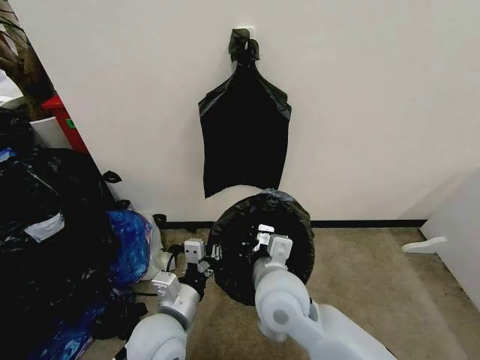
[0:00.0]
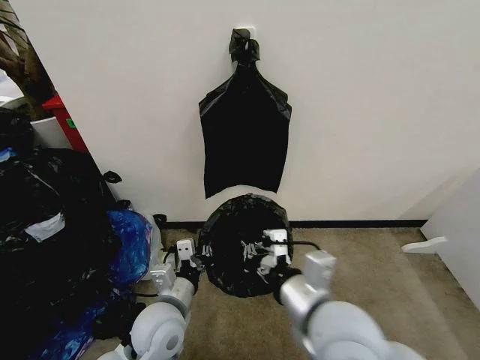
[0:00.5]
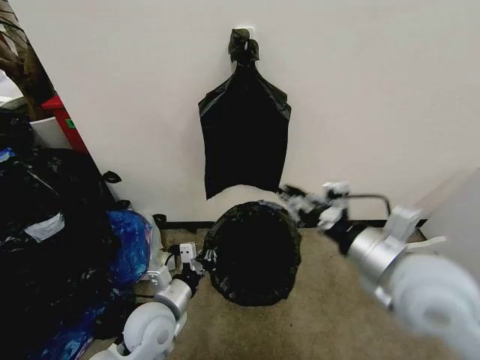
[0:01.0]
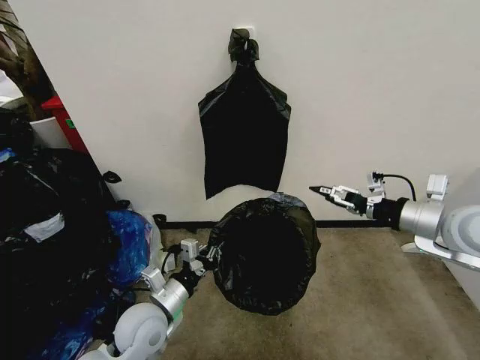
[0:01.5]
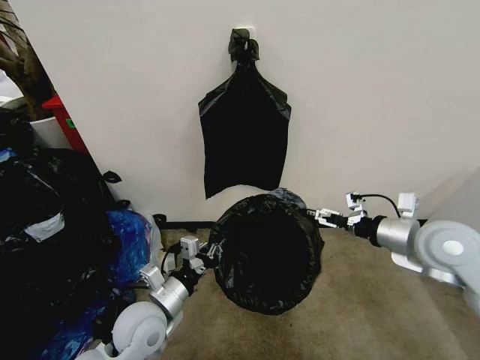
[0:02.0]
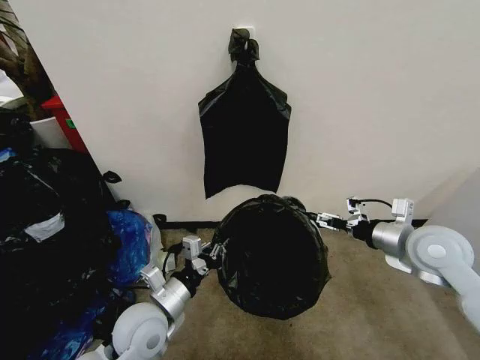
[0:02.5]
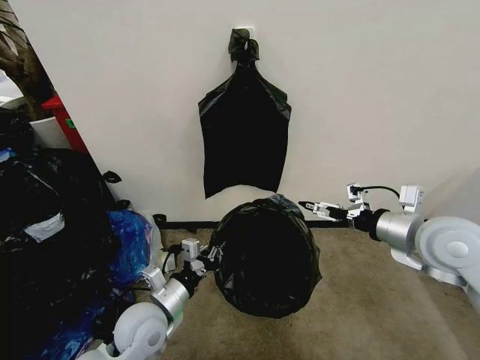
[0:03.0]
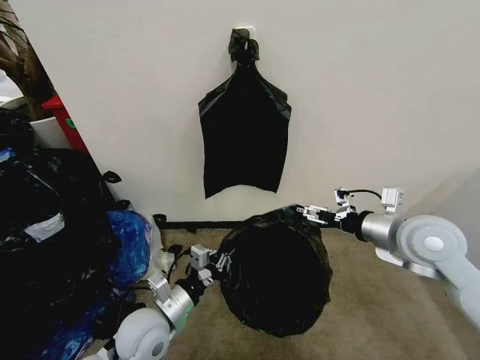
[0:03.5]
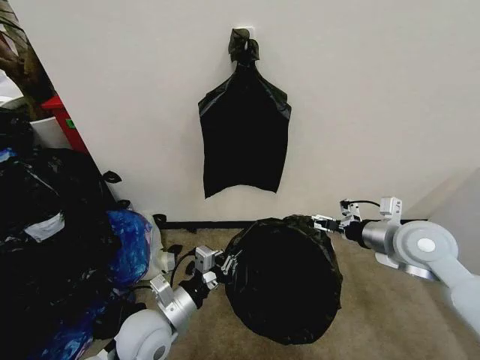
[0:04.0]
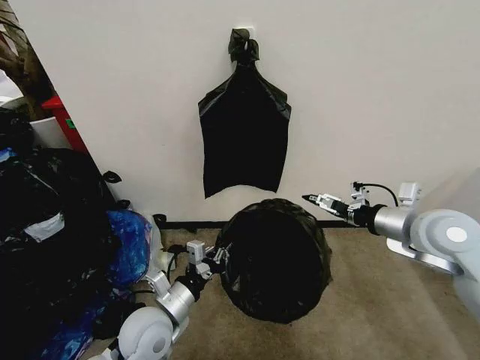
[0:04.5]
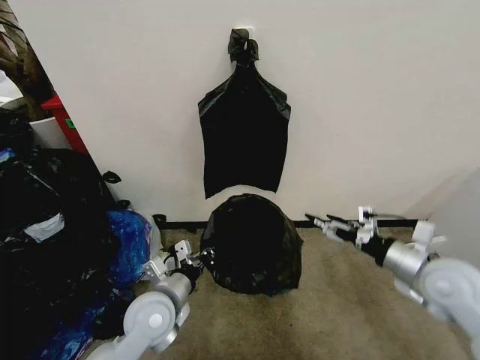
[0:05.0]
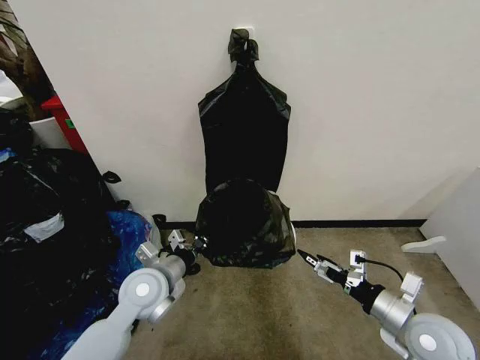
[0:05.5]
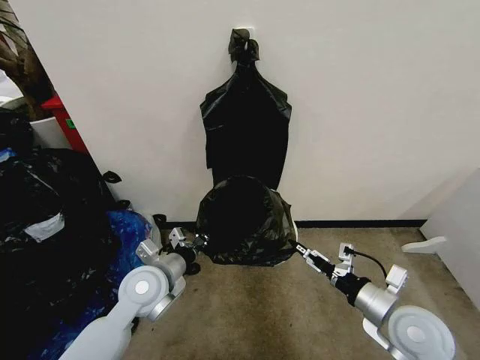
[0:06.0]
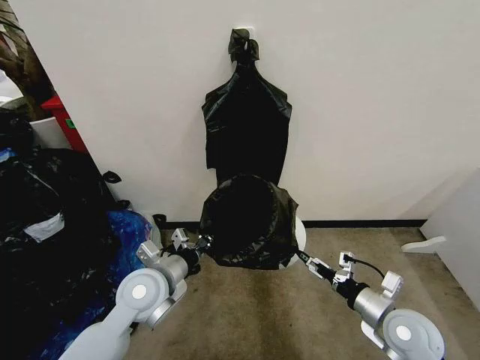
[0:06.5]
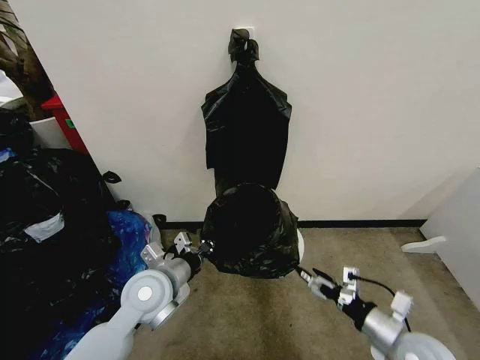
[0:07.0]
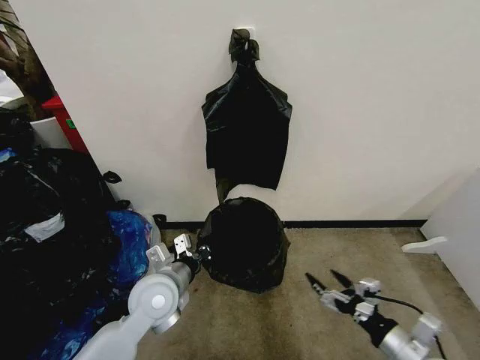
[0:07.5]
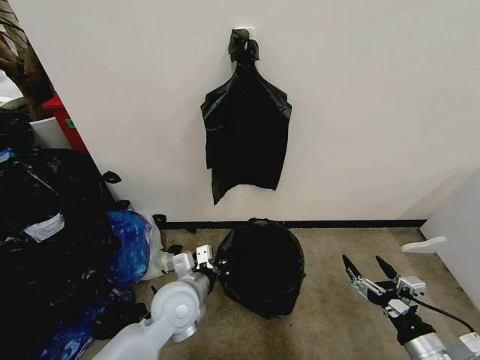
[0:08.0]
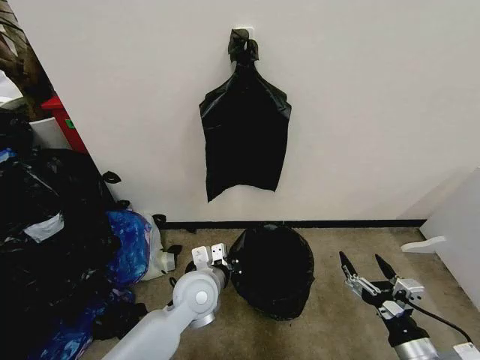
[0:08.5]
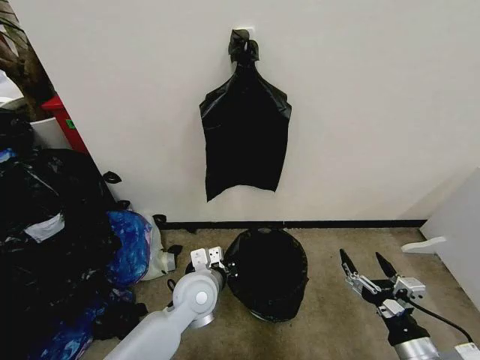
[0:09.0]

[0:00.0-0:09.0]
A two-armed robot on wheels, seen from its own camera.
Task of the whole recording: Place the garbage bag over the trash bin.
0:00.0 to 0:02.0: The left gripper travels to the left by about 5 cm. Meanwhile the right gripper travels to the right by roughly 30 cm, and opens up.
0:02.0 to 0:04.5: There are only small adjustments of the grippers.
0:04.5 to 0:07.0: The left gripper goes approximately 5 cm upward and forward, while the right gripper is displaced downward and backward by roughly 25 cm.
0:07.0 to 0:09.0: The left gripper moves to the right and downward, approximately 10 cm. Meanwhile the right gripper heads backward, covering some 10 cm.

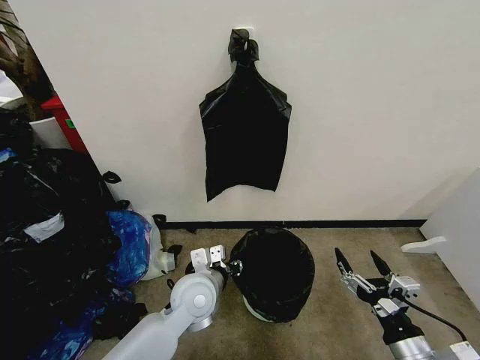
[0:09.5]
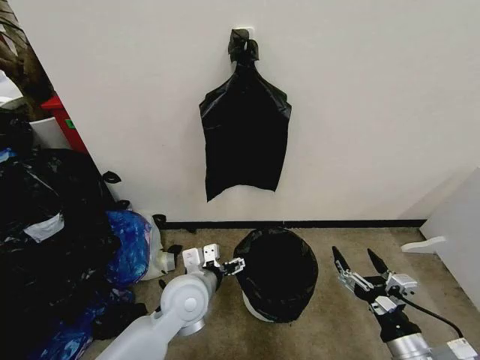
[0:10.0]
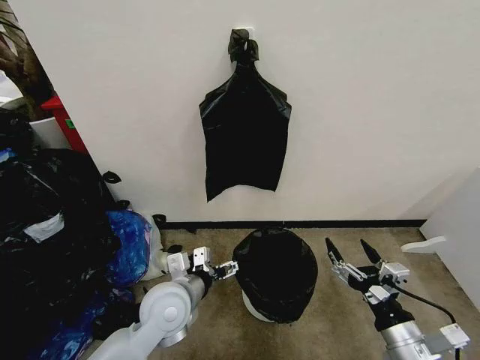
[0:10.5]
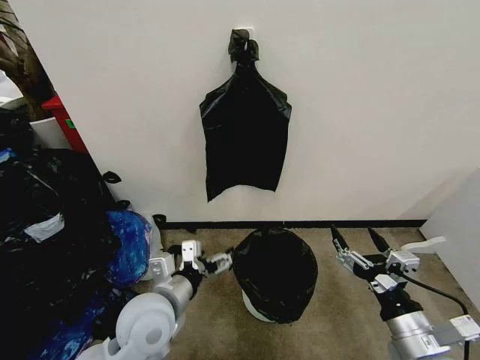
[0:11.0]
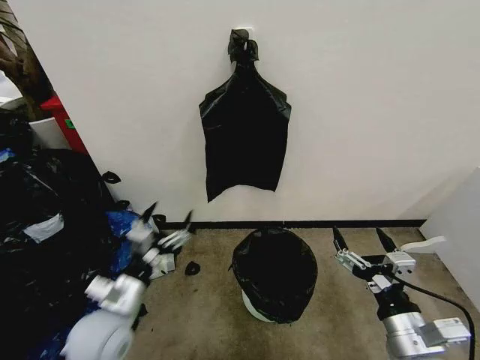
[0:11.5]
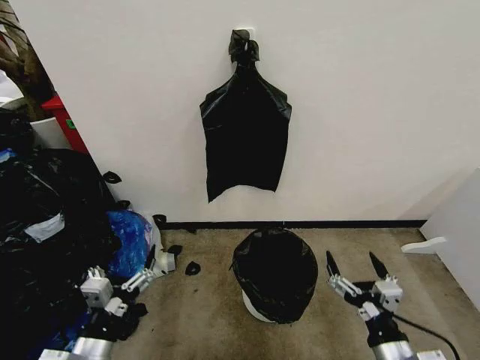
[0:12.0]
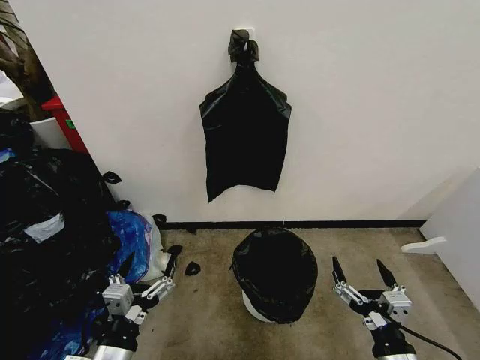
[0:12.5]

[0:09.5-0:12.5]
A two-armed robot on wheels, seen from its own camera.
Task of the whole recording: Place the garbage bag over the trash bin.
0:09.5 to 0:11.0: The right gripper moves roughly 5 cm. Meanwhile the left gripper heads to the left, backward and upward, covering about 10 cm, and opens its fingers.
0:11.0 to 0:12.5: The right gripper travels downward by about 5 cm. The left gripper shifts about 15 cm backward and to the left.

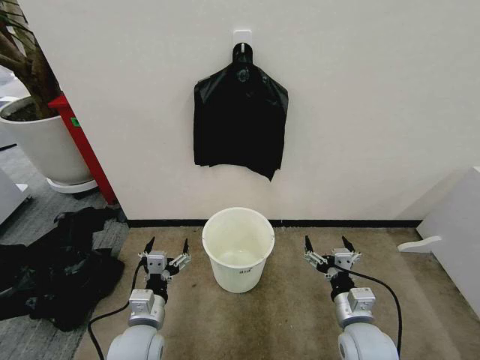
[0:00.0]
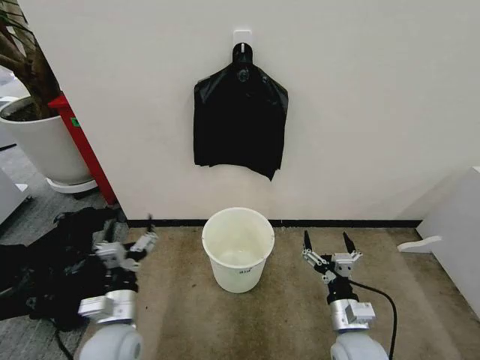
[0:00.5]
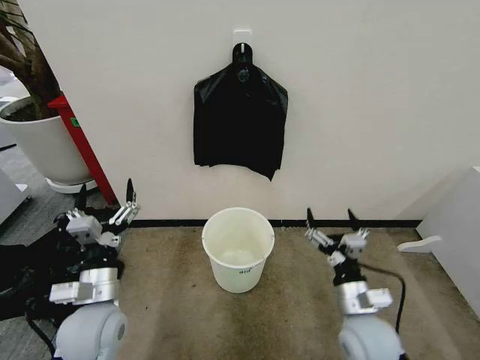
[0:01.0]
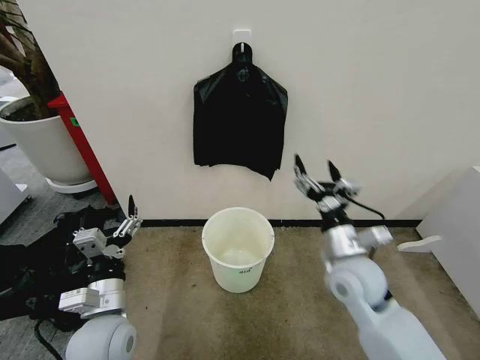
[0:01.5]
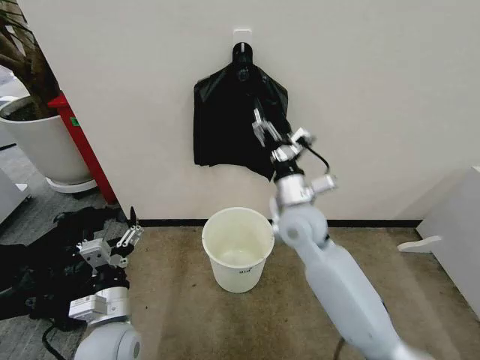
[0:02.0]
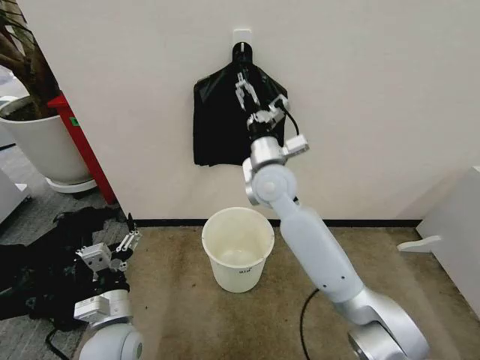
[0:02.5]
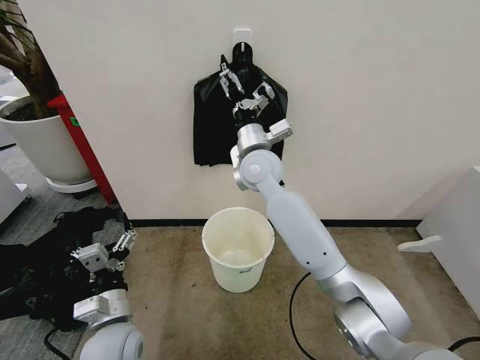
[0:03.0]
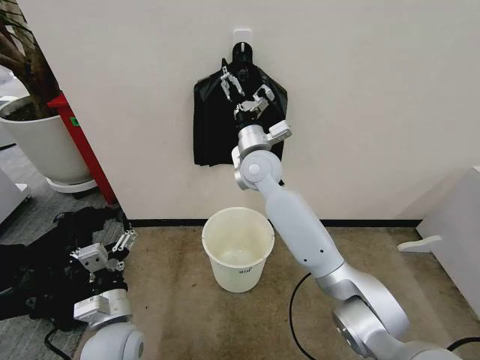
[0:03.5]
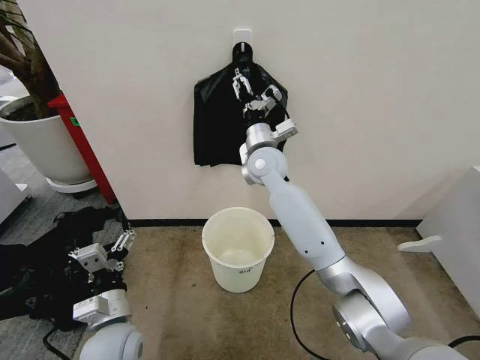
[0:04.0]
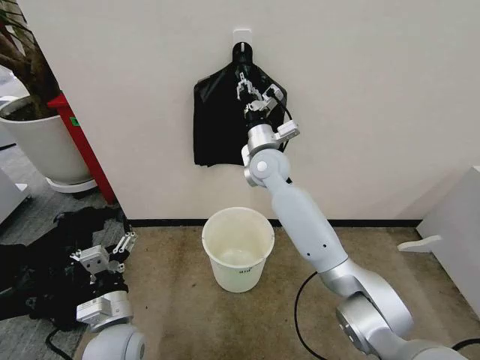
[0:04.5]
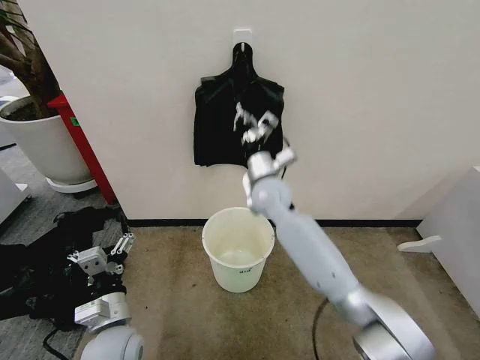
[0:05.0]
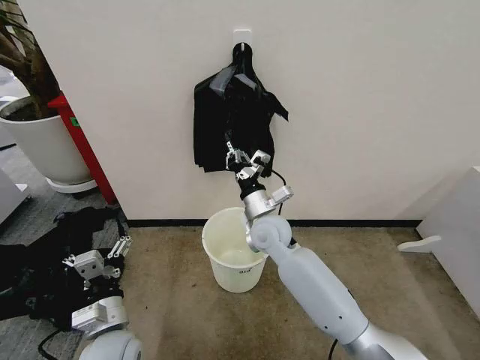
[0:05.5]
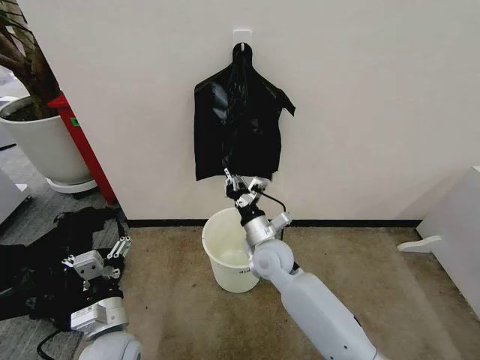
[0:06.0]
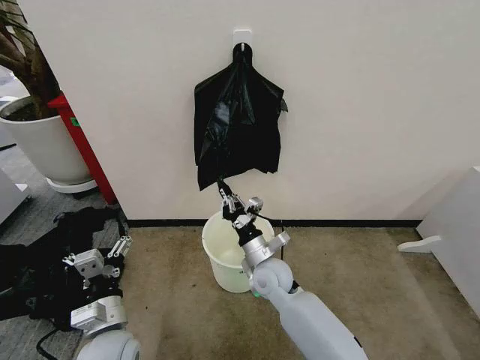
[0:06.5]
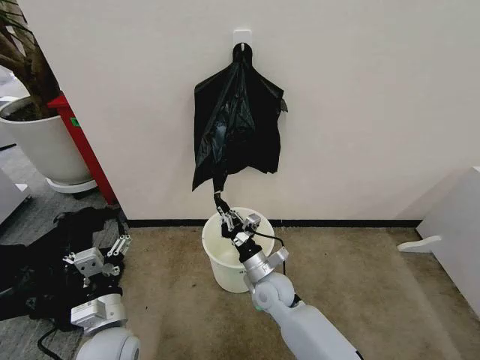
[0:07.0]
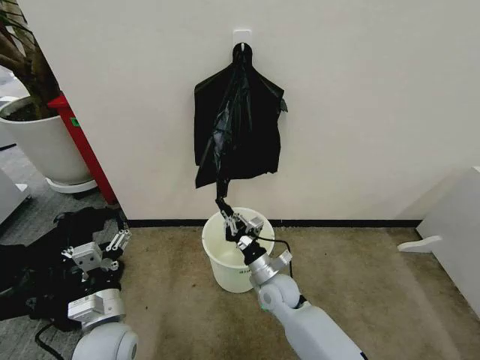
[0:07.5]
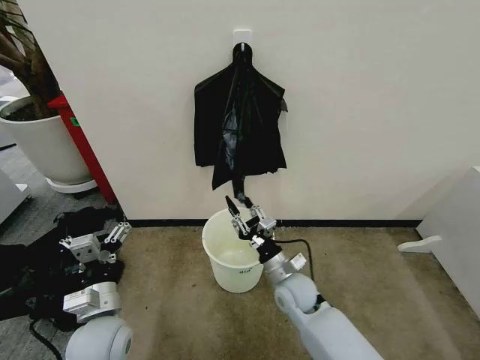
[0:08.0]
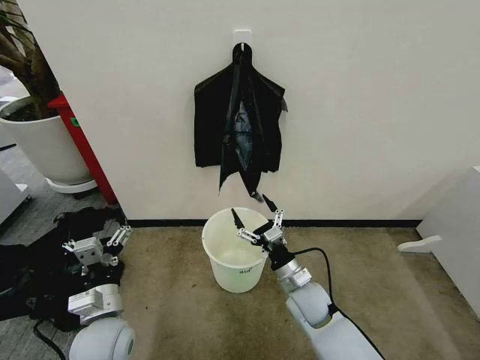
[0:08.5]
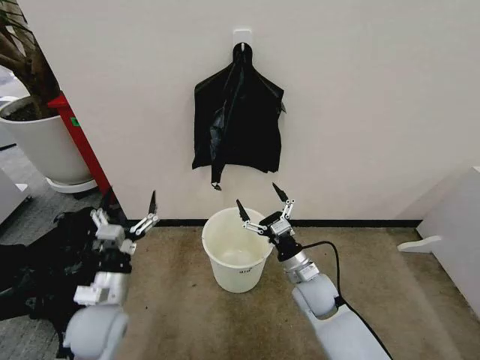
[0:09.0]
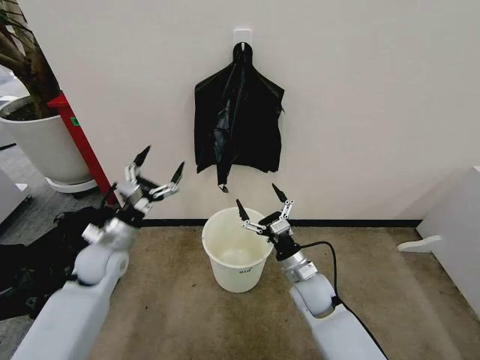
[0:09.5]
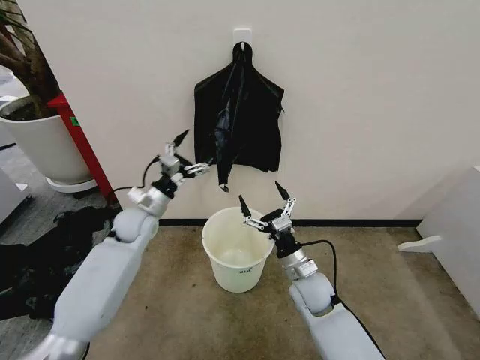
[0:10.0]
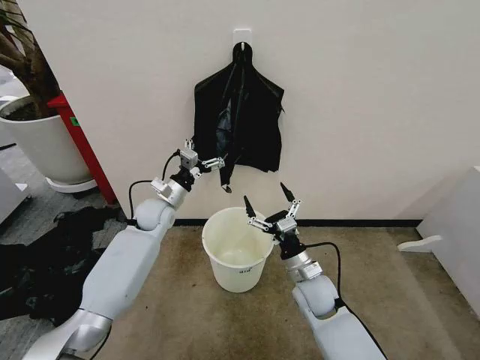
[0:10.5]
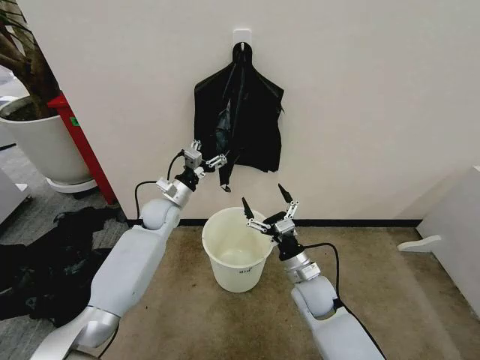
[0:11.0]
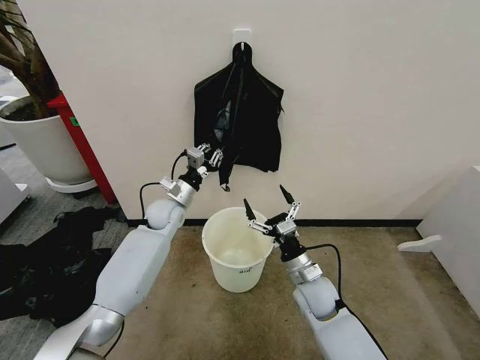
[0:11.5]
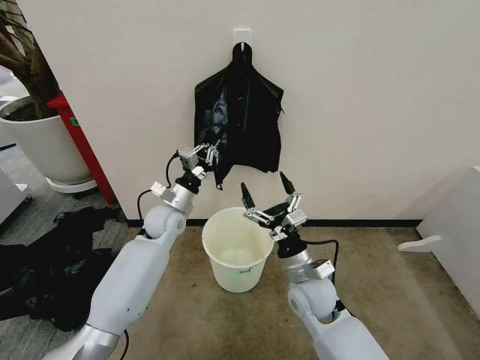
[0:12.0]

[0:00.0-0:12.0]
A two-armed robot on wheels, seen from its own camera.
Task of the whole recording: Place the garbage bag over the trash bin.
0:02.0 to 0:04.0: The right gripper heads forward and to the left, covering roughly 15 cm.
0:04.0 to 0:06.0: The right gripper heads downward and backward, covering roughly 20 cm, and closes.
0:06.0 to 0:08.0: The right gripper travels downward, to the right and backward by approximately 10 cm, and opens.
0:08.0 to 0:10.0: The right gripper opens. Meanwhile the left gripper travels forward by about 25 cm.
0:10.0 to 0:12.0: The left gripper travels to the right by about 5 cm, and closes; the right gripper goes approximately 5 cm upward.

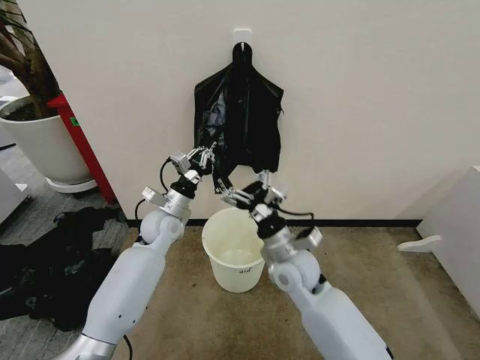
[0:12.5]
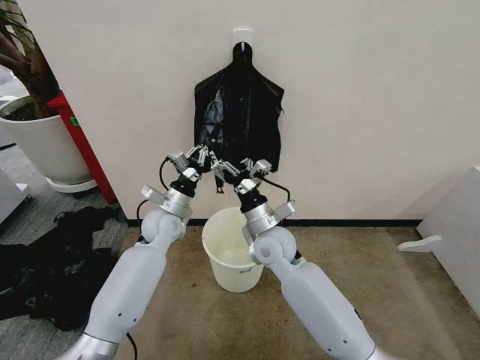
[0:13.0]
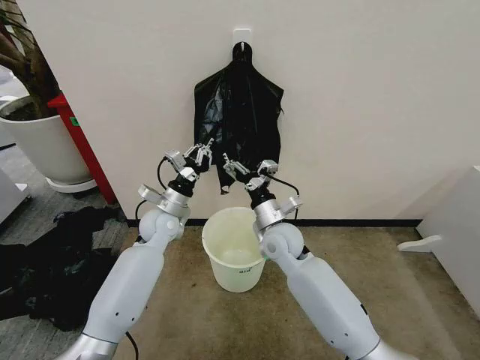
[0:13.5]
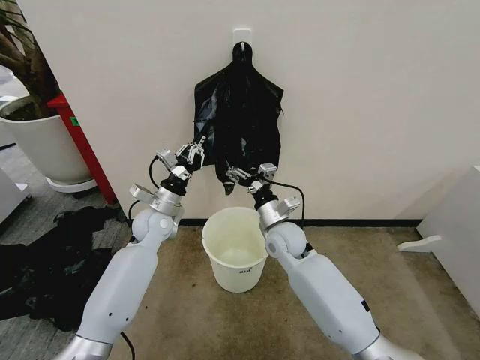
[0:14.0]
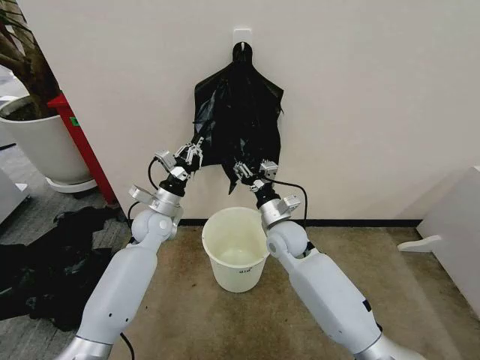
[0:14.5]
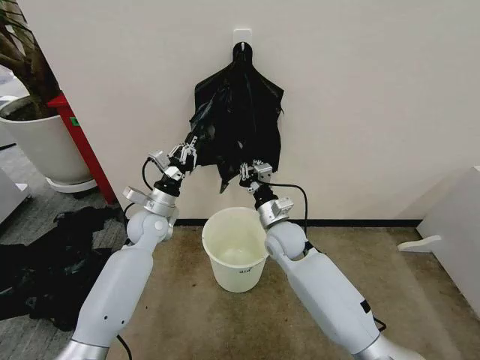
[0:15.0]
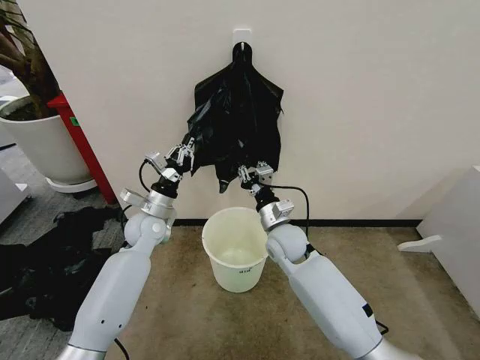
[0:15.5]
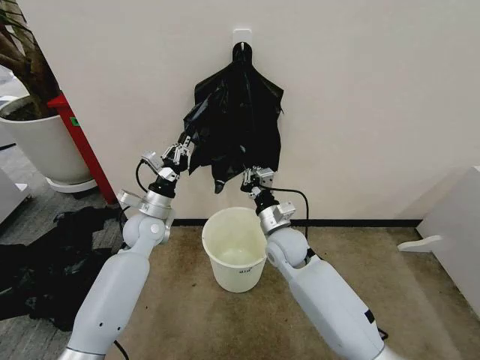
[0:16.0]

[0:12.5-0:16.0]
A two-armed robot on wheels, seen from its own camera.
Task of the whole recording: Place the garbage bag over the trash bin.
0:12.5 to 0:14.5: The right gripper shifts some 10 cm forward.
0:14.5 to 0:16.0: The right gripper closes its fingers.
